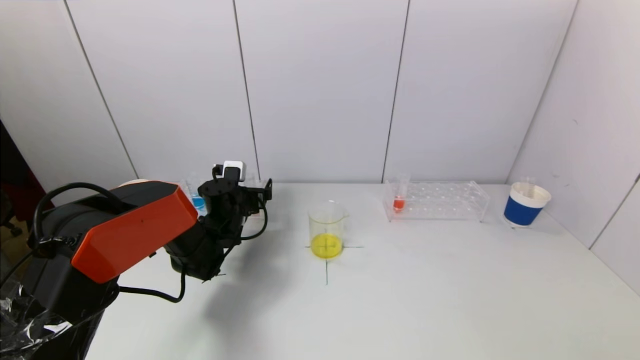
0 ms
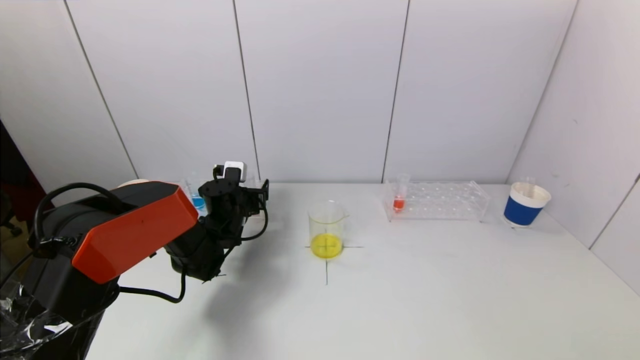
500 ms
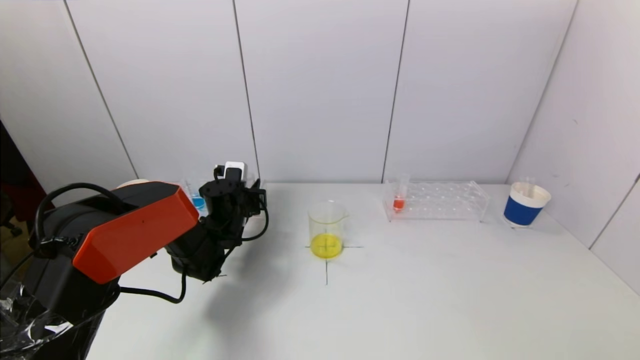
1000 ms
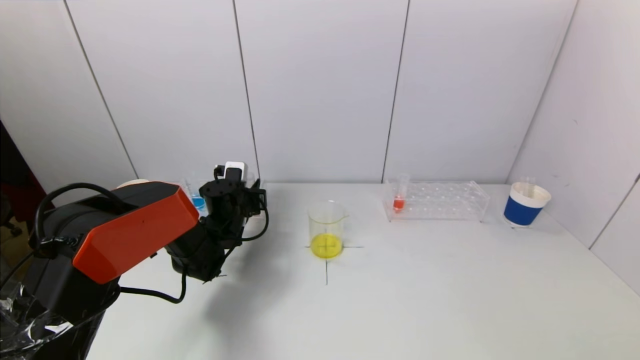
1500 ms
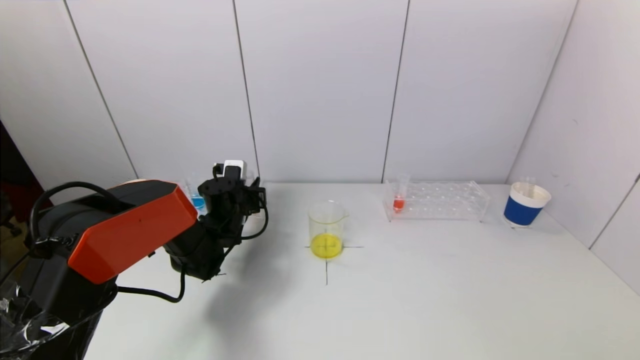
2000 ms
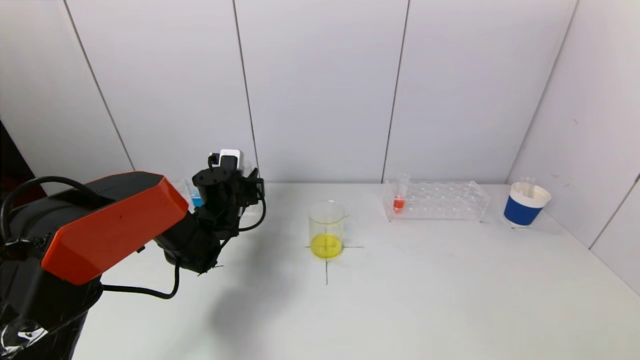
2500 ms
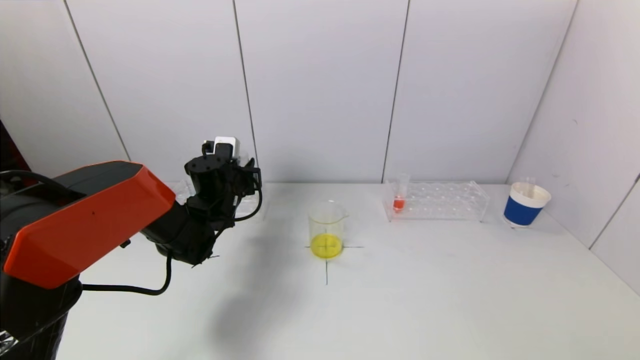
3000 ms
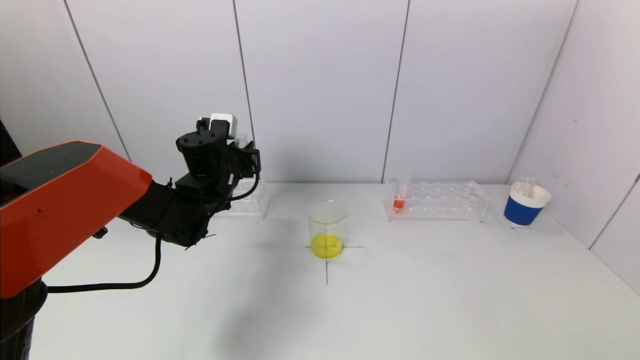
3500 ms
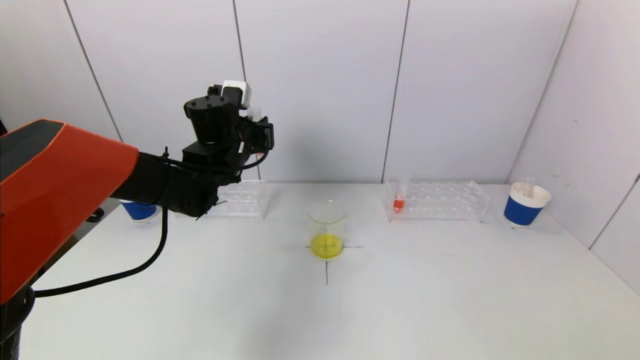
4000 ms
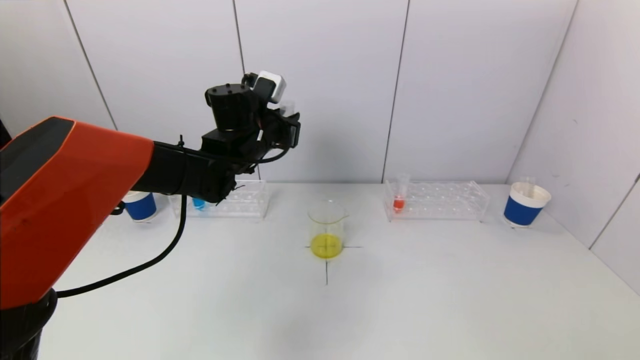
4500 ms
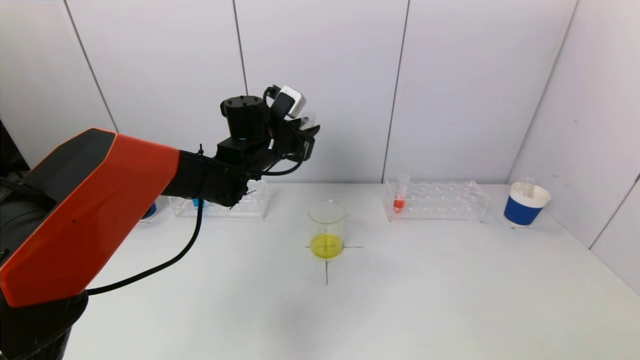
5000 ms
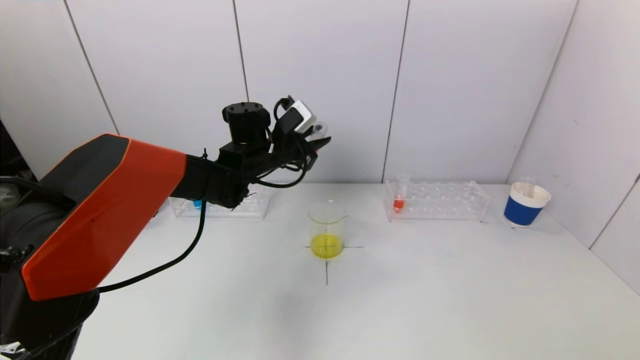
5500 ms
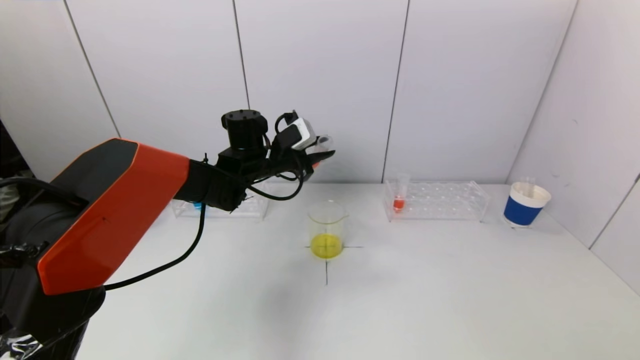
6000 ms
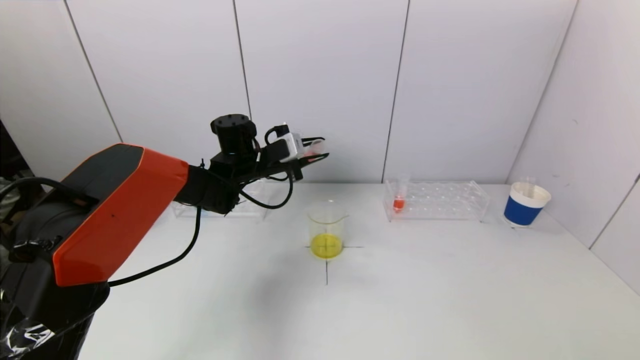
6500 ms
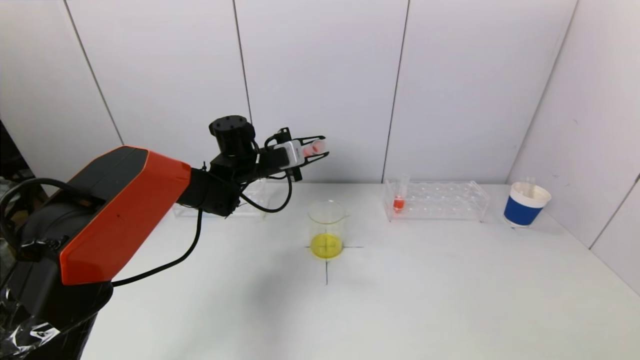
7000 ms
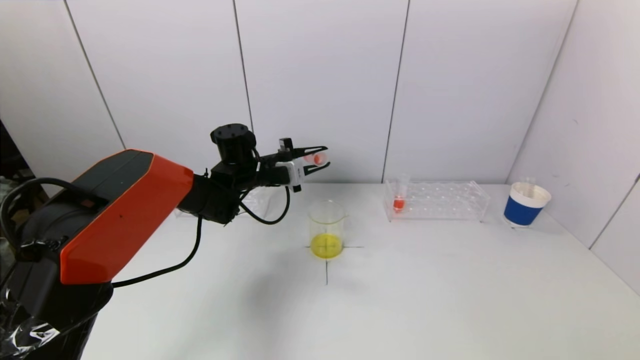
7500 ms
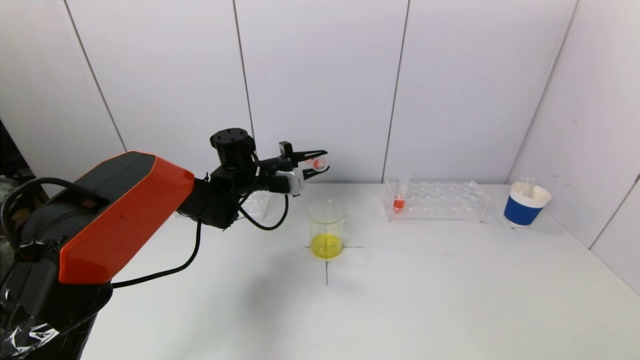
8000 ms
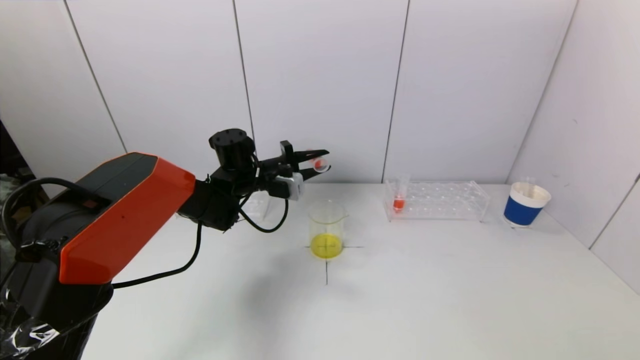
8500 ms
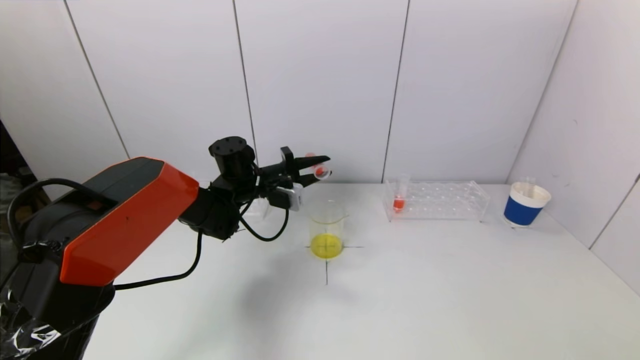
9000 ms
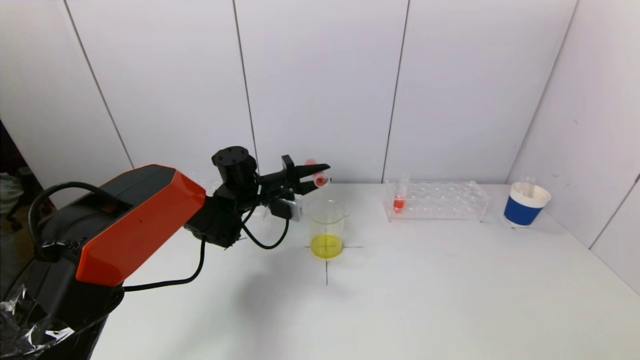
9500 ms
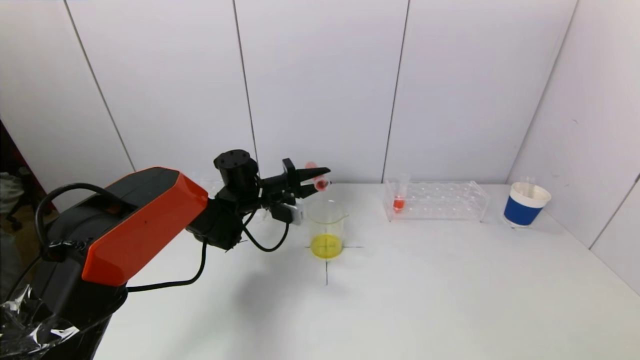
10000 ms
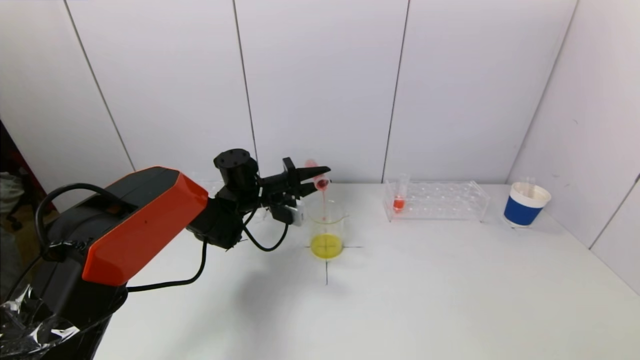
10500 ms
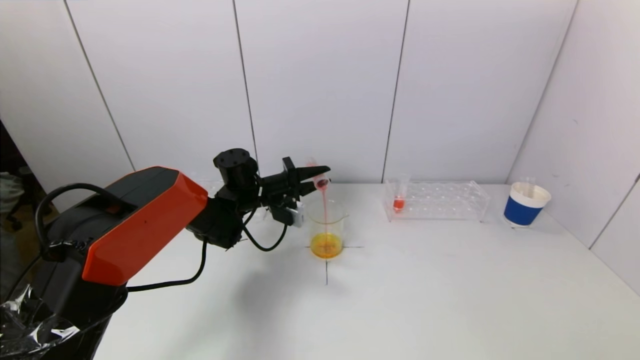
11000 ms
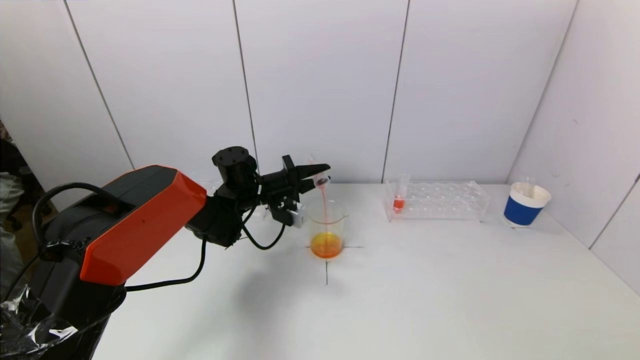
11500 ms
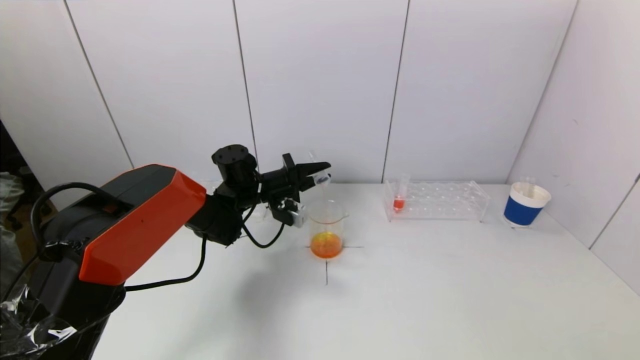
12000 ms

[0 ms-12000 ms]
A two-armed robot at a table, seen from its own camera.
Task of the whole recording: pick up a test tube with pigment on left test tube rack and a test tube with pigment on right test tube rack by grippers and pour them into the beaker.
0 ms to 2000 ms: The left gripper closes up.
2000 ms to 4000 ms: The left gripper shifts approximately 15 cm upward.
4000 ms to 6000 ms: The left gripper ends up about 5 cm from where it was.
8000 ms to 10000 ms: The grippers make only small movements.
10000 ms to 12000 ms: There are only small adjustments of the grippers.

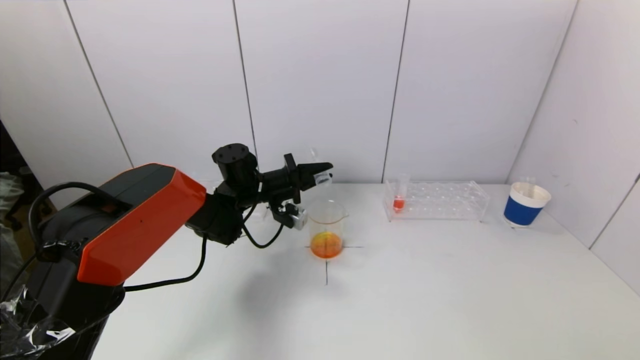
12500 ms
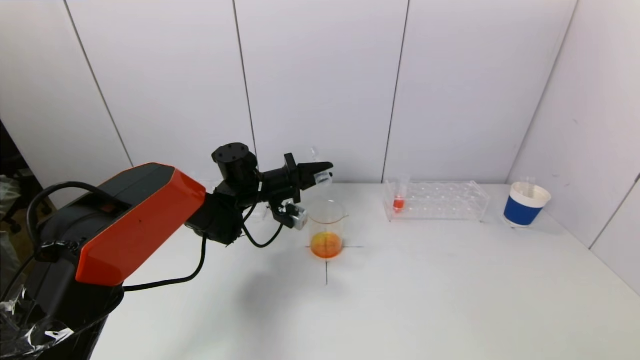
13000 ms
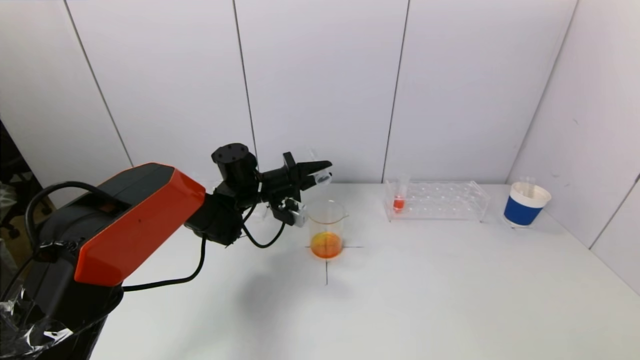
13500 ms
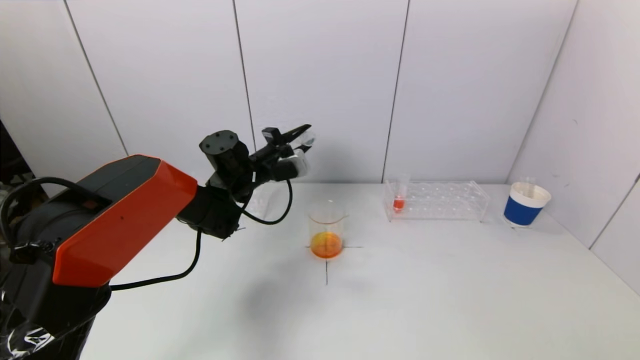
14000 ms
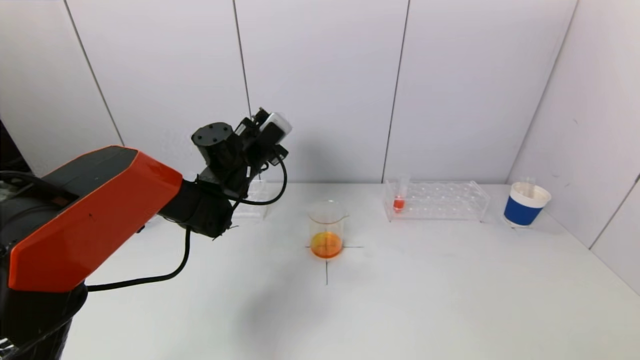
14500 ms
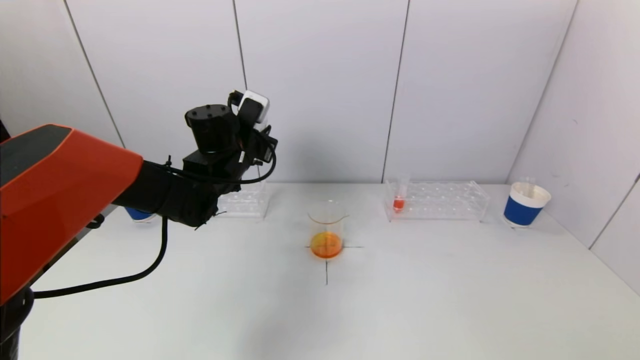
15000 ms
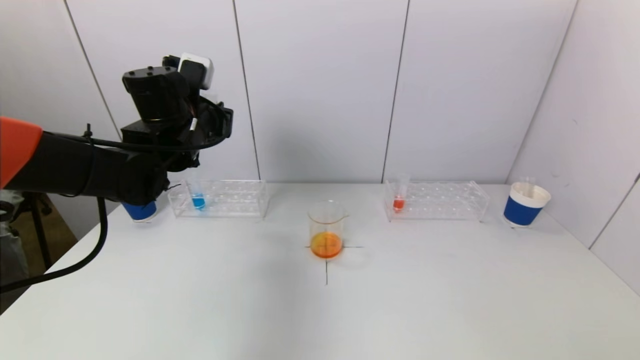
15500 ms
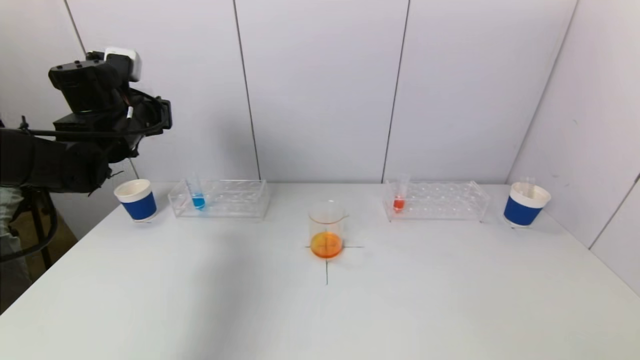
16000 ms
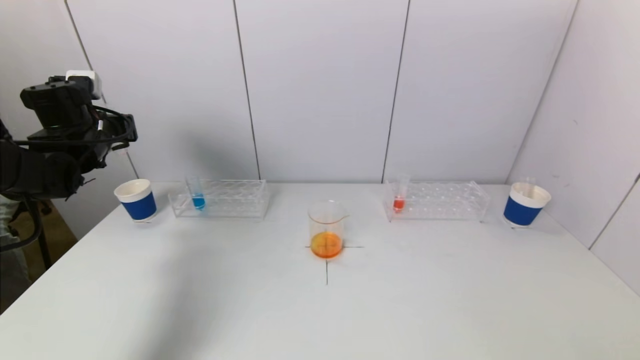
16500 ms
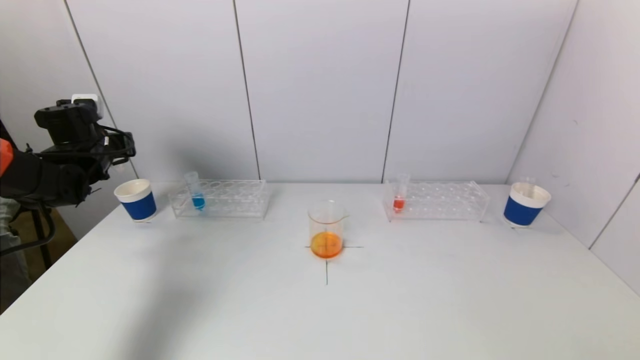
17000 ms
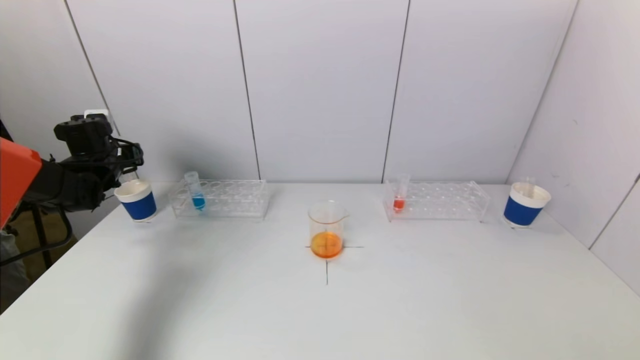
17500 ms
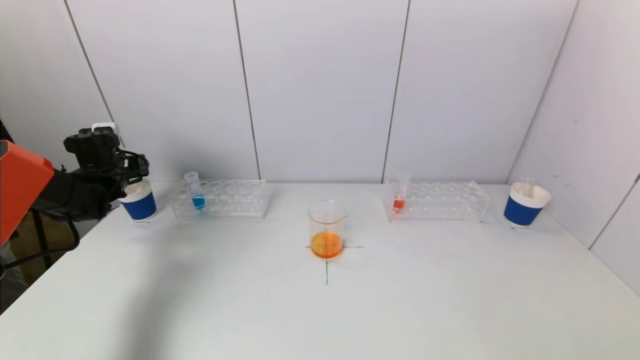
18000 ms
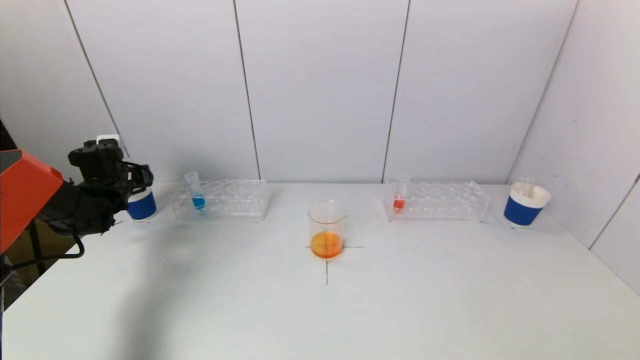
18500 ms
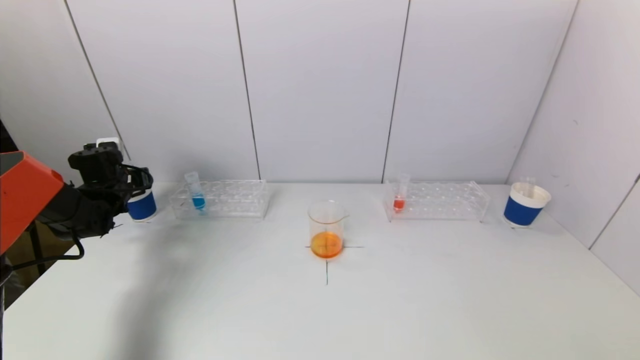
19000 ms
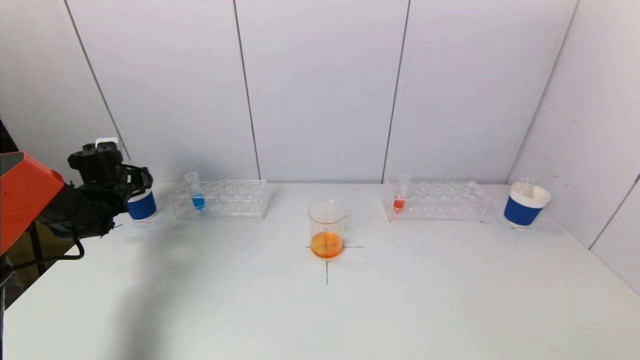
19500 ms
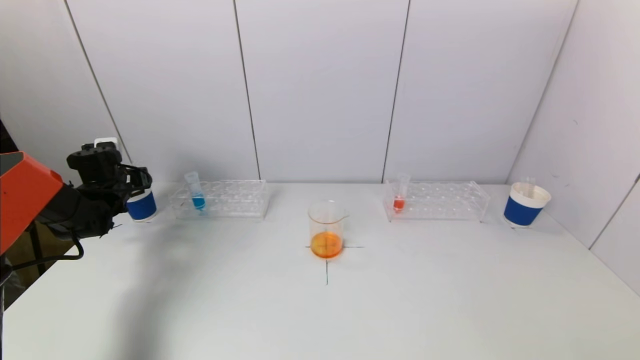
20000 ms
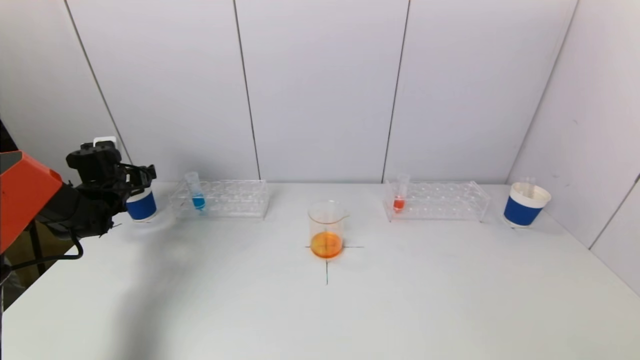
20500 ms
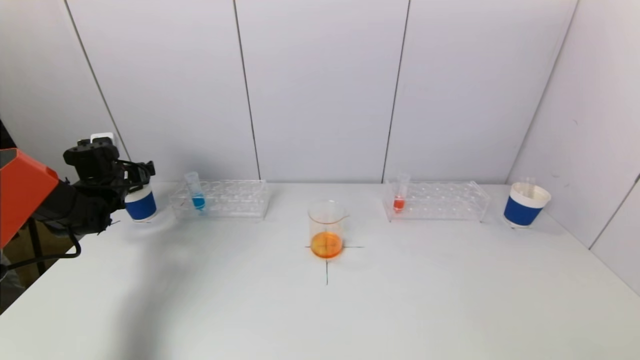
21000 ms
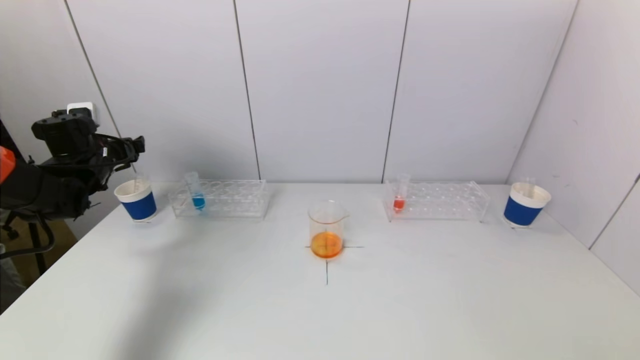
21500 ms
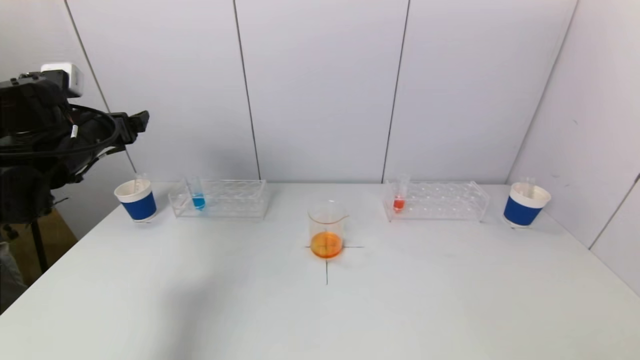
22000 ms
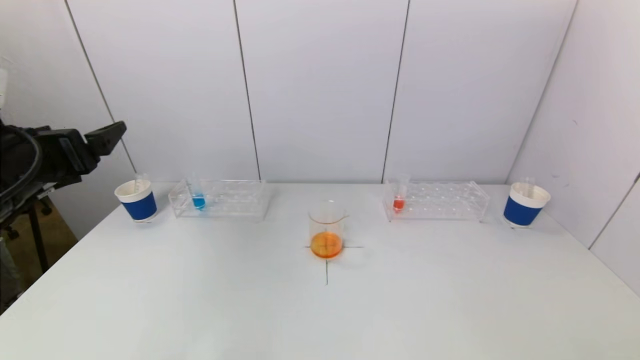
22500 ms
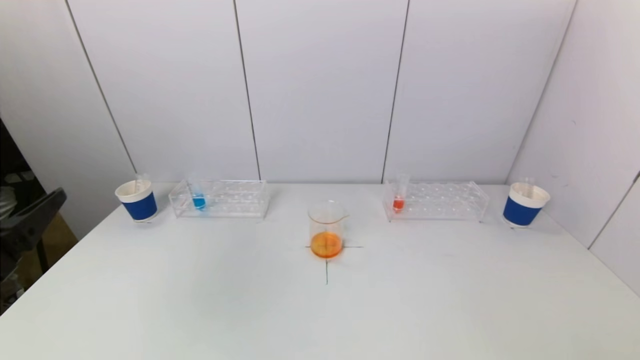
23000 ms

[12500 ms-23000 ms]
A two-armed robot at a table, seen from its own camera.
Task of the whole recording: pick up a test tube with pigment on left test tube rack and a test tube with pigment on right test tube rack by grippers and pour them into the beaker.
Step, 13000 ms to 20000 ms: Place the test tube into the paper cup with the left gripper.
12500 ms to 14500 ms: The left gripper shifts some 5 cm upward.
14500 ms to 16500 ms: The left gripper shifts roughly 25 cm to the left.
16500 ms to 19000 ms: The left gripper shifts approximately 15 cm downward.
19000 ms to 21000 ms: The left gripper opens.
21000 ms to 23000 ms: The left gripper moves backward, about 35 cm.
